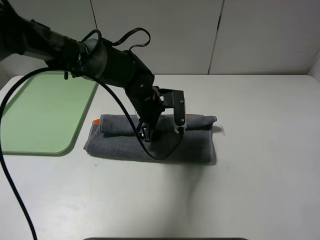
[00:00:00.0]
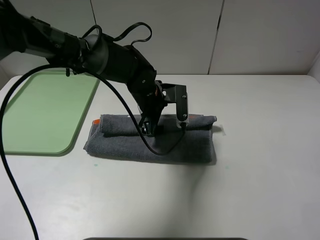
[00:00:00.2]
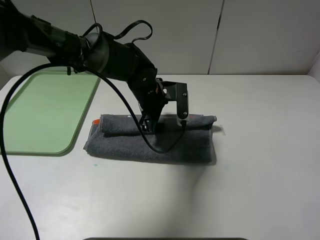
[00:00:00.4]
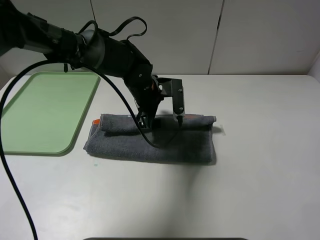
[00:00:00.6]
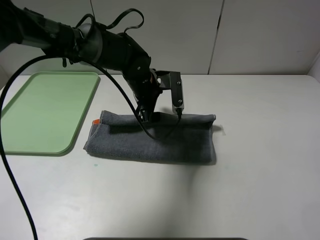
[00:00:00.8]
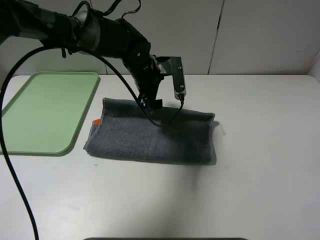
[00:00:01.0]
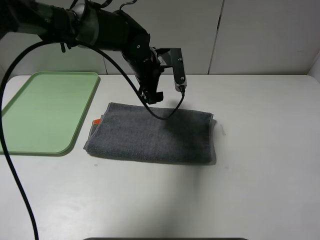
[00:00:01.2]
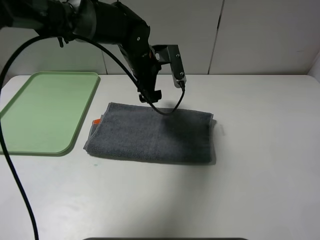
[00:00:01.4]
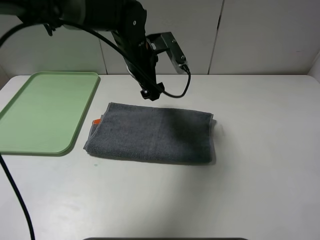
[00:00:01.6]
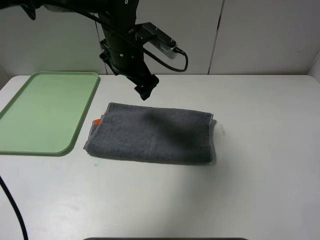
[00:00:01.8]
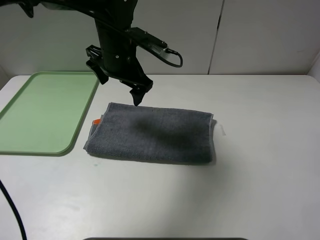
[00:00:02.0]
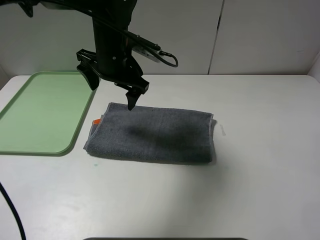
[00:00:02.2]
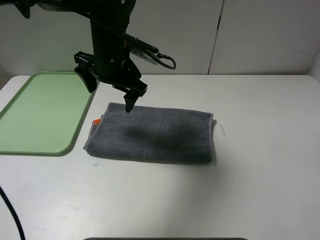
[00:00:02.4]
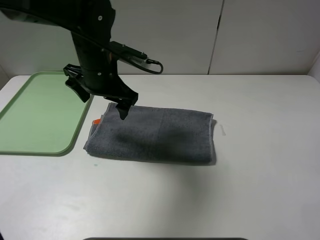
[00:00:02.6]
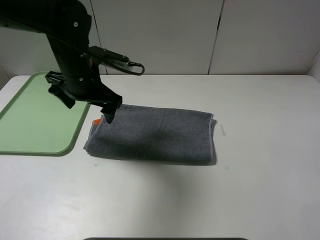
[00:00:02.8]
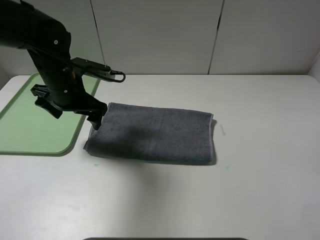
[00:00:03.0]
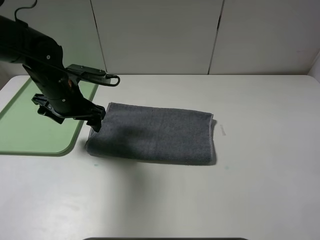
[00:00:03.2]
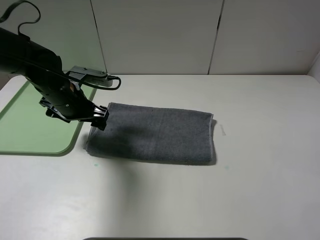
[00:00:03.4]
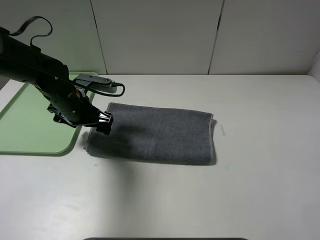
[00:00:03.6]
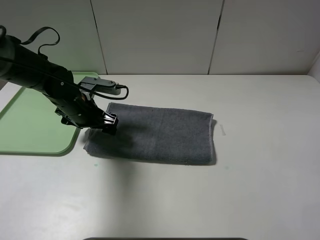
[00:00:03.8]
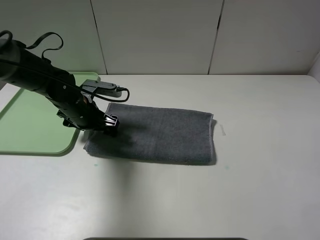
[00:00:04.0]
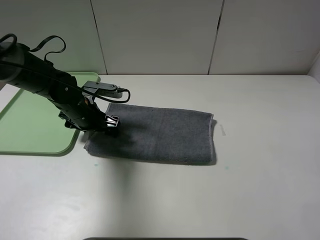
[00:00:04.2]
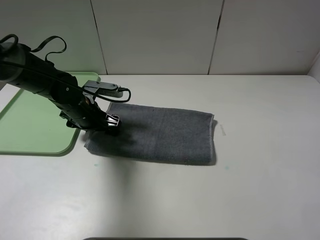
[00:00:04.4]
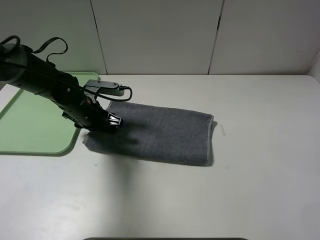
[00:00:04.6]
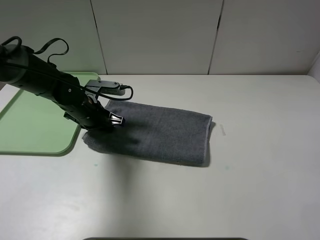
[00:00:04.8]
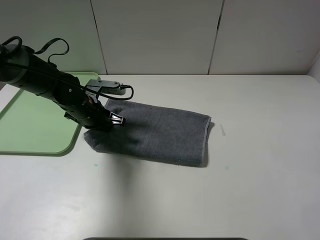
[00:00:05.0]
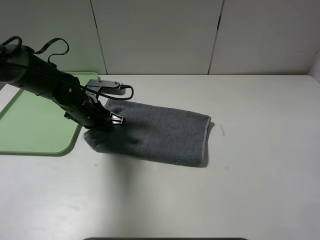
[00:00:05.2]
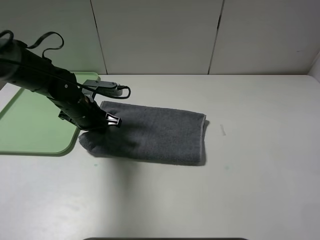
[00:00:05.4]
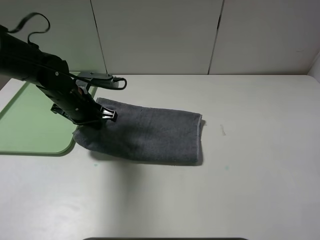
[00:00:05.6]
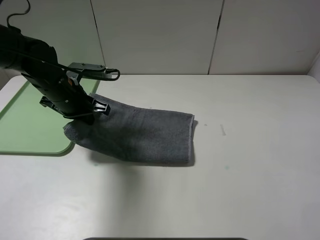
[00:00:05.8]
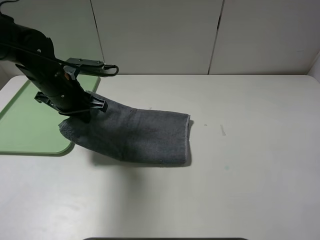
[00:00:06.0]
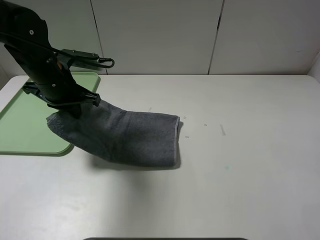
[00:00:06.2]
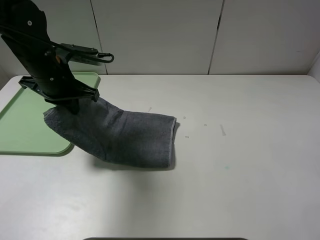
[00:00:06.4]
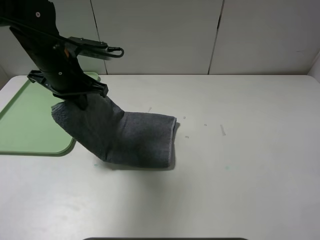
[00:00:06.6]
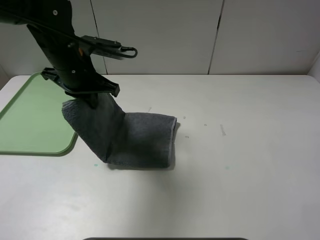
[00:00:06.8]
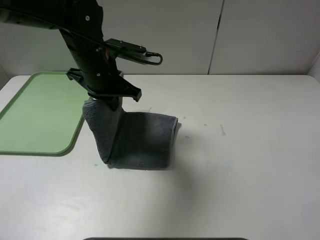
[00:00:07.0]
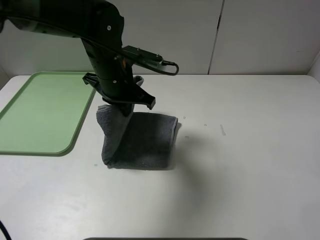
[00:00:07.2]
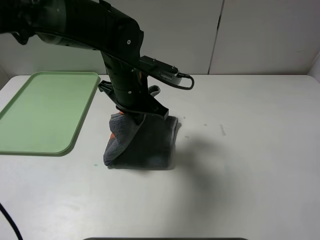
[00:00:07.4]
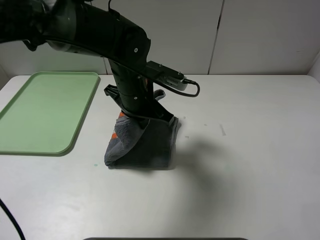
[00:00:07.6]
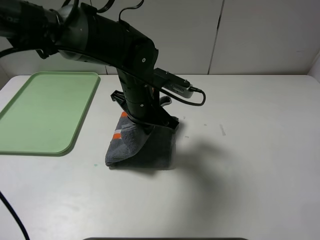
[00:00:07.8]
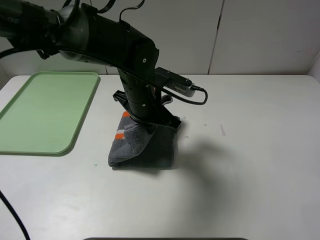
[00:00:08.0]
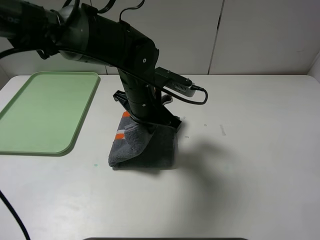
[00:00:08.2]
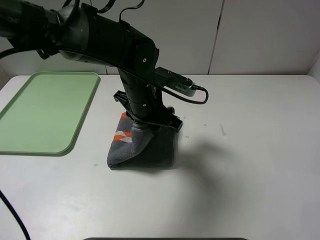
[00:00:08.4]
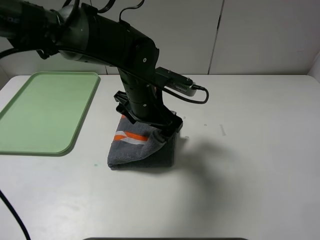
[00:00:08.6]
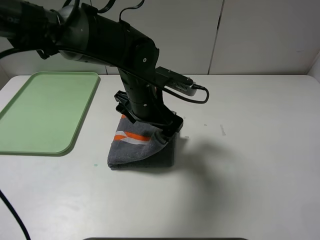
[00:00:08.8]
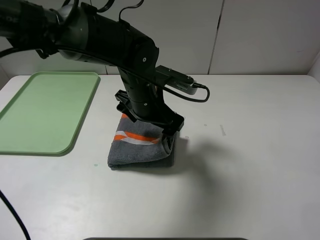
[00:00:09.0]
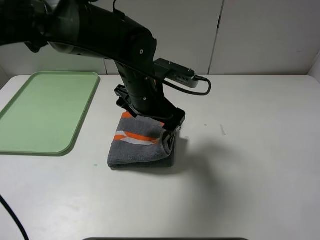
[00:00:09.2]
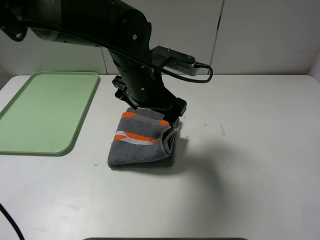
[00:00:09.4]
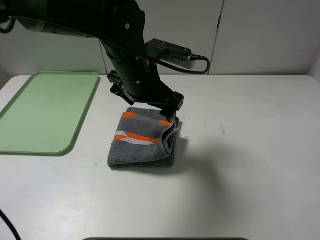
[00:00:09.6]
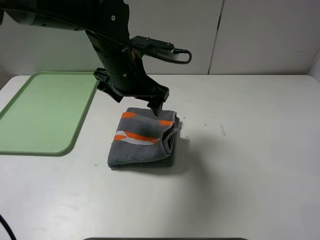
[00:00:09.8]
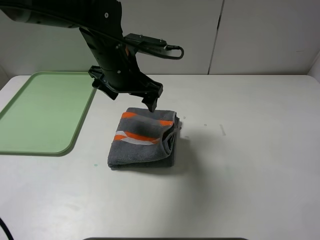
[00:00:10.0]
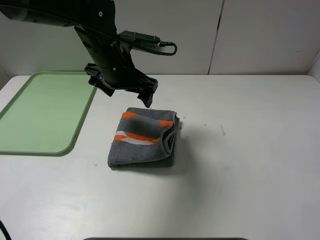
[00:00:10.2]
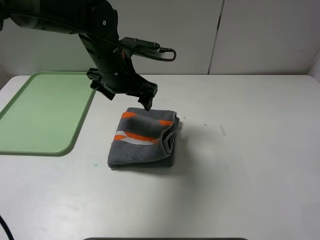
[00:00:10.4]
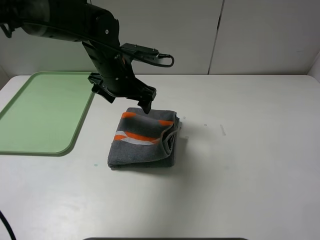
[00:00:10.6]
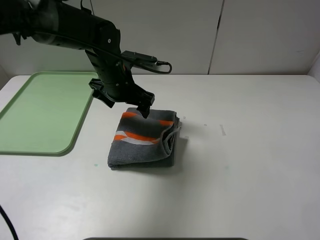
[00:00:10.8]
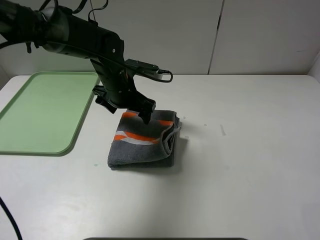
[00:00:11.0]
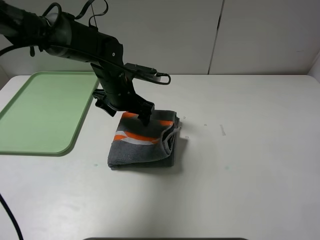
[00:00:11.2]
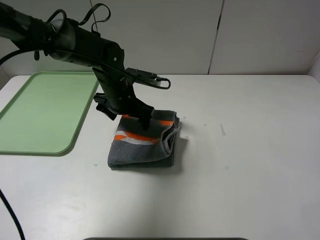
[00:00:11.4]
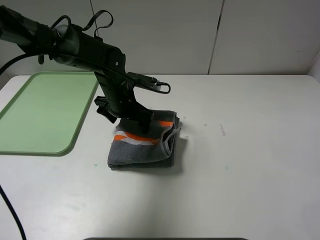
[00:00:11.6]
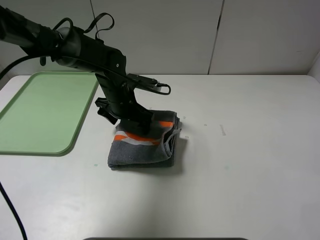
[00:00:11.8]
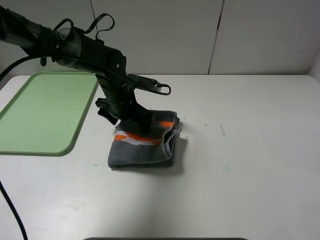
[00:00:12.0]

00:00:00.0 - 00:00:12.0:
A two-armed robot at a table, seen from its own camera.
Step, 00:00:01.2 - 00:00:09.0: Fold the grey towel from left to right with left gripper.
00:00:00.0 - 00:00:01.6: The left gripper shifts some 10 cm upward.
00:00:01.6 - 00:00:03.0: The left gripper heads to the left and backward, covering roughly 15 cm.
00:00:03.0 - 00:00:04.4: The left gripper travels downward by approximately 10 cm.
00:00:04.4 - 00:00:06.0: The left gripper travels upward by some 10 cm, and closes its fingers.
00:00:06.0 - 00:00:07.6: The left gripper moves to the right, approximately 15 cm.
00:00:07.6 - 00:00:09.0: The left gripper opens up.
00:00:09.0 - 00:00:10.4: The left gripper shifts approximately 5 cm to the left.
00:00:10.4 - 00:00:12.0: The left gripper shifts about 10 cm downward.

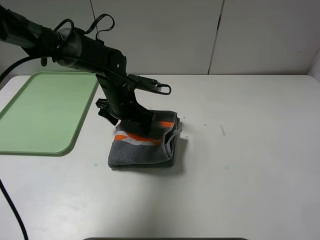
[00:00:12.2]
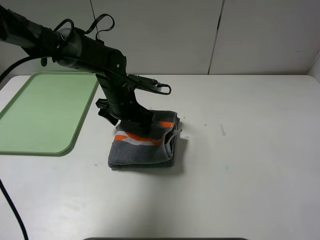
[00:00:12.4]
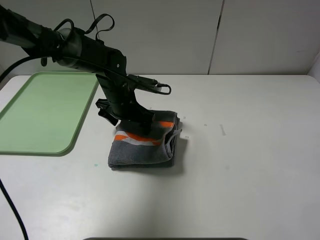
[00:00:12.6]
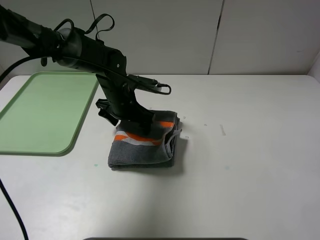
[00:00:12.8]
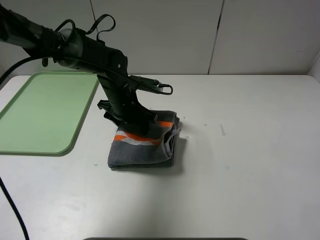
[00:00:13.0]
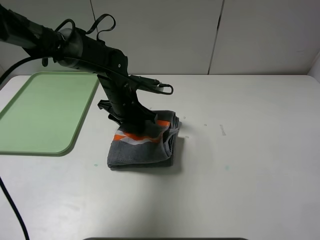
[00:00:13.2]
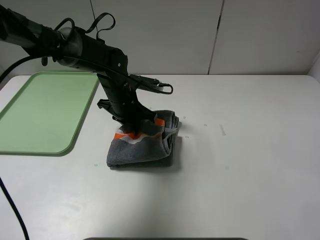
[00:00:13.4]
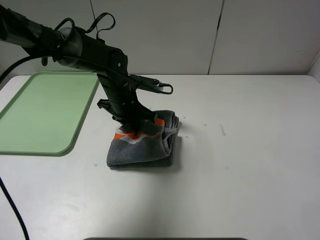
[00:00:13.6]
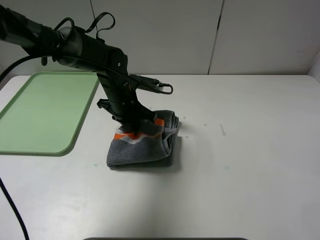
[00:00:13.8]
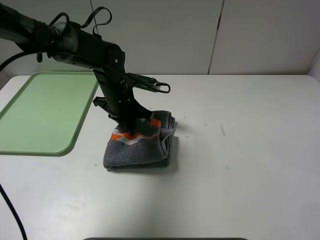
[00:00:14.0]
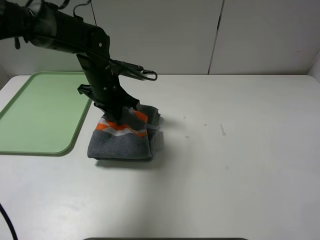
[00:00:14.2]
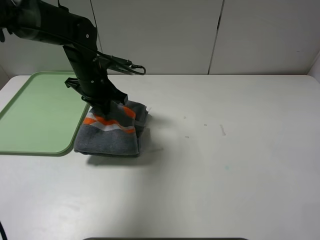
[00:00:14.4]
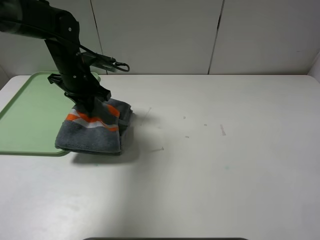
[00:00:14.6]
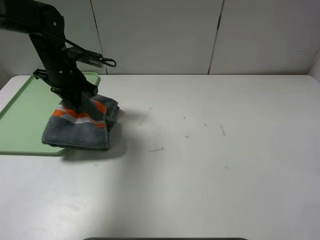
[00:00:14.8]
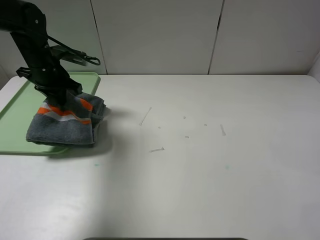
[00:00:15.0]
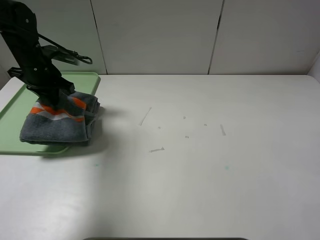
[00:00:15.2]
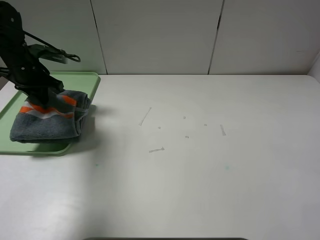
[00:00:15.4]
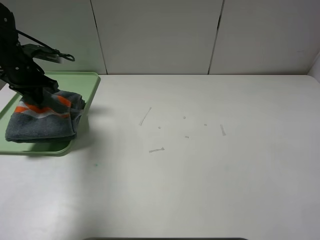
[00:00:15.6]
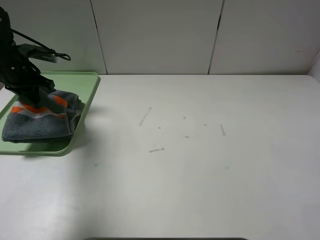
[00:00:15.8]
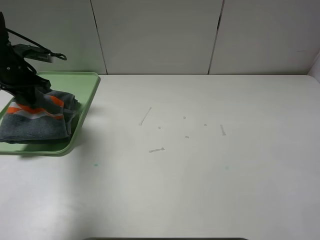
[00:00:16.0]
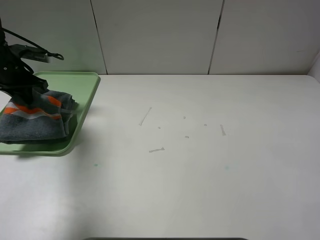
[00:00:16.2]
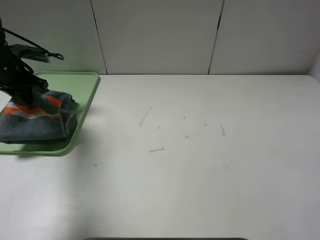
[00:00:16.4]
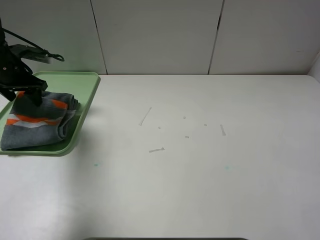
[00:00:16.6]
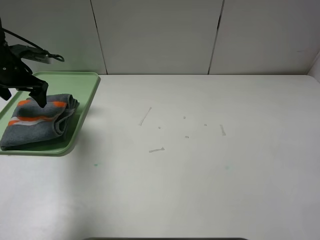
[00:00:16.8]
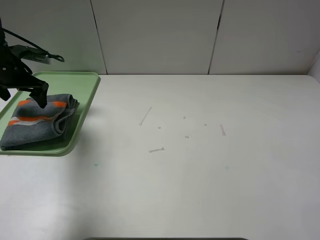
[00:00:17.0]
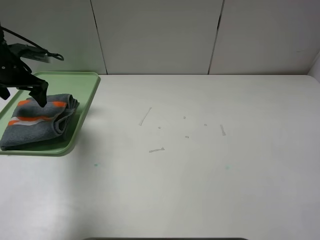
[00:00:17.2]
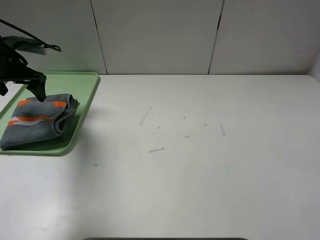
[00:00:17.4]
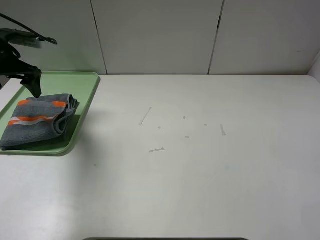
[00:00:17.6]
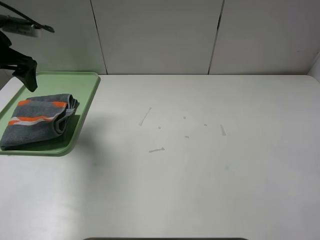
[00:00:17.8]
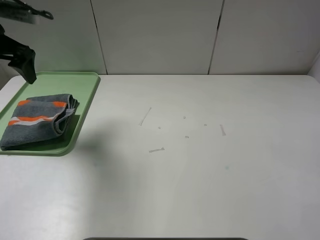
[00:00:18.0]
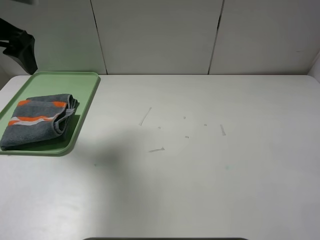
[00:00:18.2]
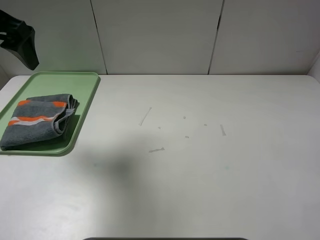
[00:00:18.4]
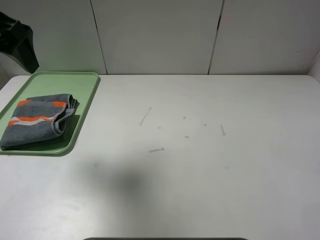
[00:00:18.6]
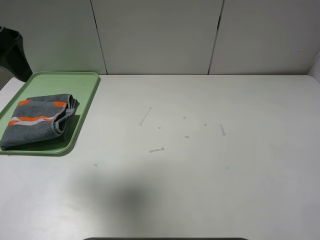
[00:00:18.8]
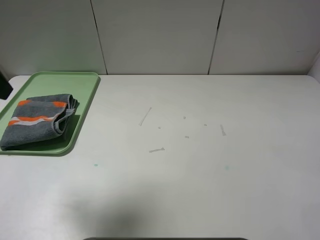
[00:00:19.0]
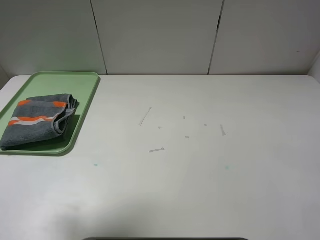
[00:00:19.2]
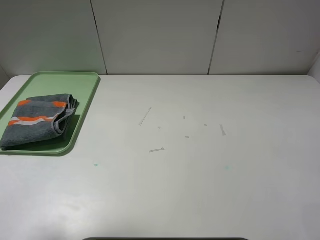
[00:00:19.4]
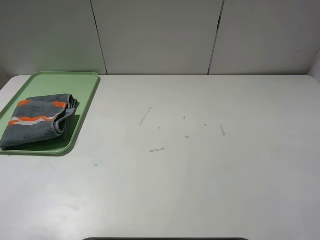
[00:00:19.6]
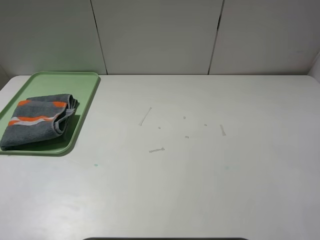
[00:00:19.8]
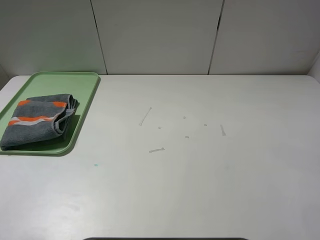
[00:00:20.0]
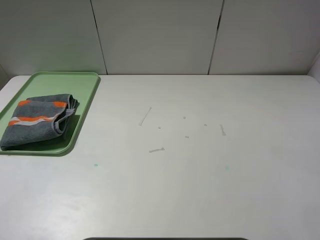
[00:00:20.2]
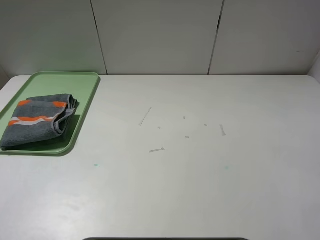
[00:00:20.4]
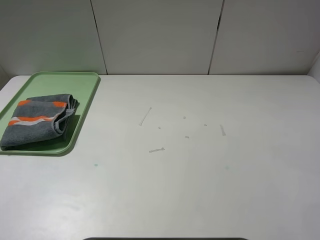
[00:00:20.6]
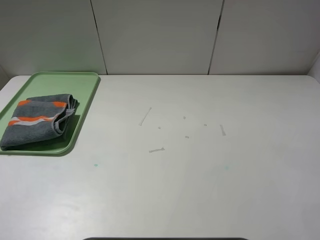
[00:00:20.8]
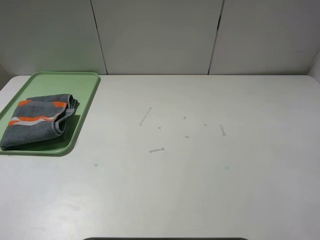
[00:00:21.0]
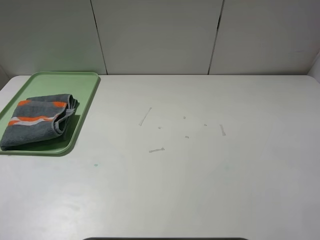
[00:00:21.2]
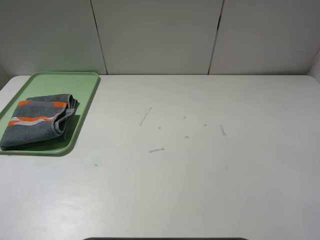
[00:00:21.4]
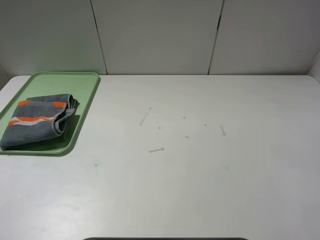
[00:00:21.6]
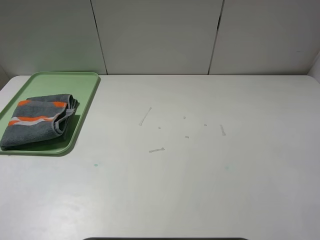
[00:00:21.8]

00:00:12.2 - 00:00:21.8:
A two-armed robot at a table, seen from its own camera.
Step, 00:00:12.2 - 00:00:16.6: Place the folded grey towel on the tray with the left gripper.
00:00:12.2 - 00:00:13.8: The left gripper closes up.
00:00:13.8 - 00:00:15.4: The left gripper travels to the left by about 25 cm.
00:00:15.4 - 00:00:17.0: The left gripper opens its fingers.
00:00:17.0 - 00:00:18.6: The left gripper travels upward, backward and to the right by approximately 25 cm.
00:00:18.6 - 00:00:20.2: The left gripper is displaced backward by some 20 cm.
